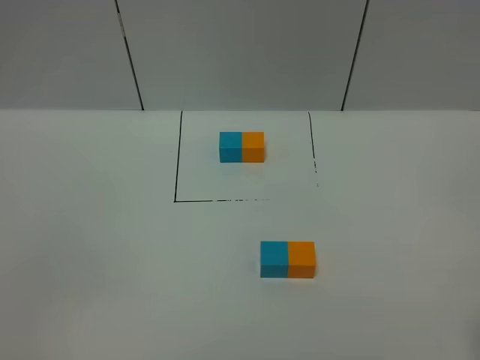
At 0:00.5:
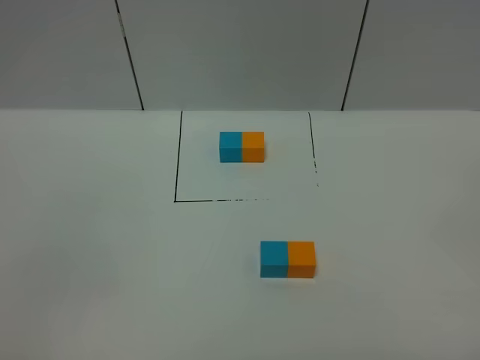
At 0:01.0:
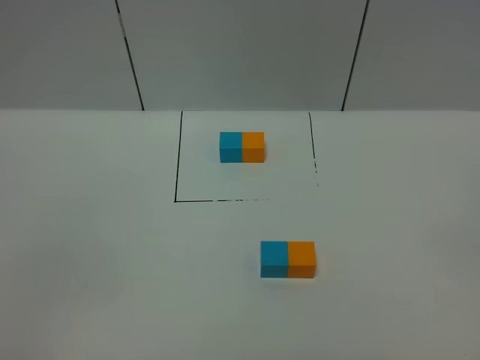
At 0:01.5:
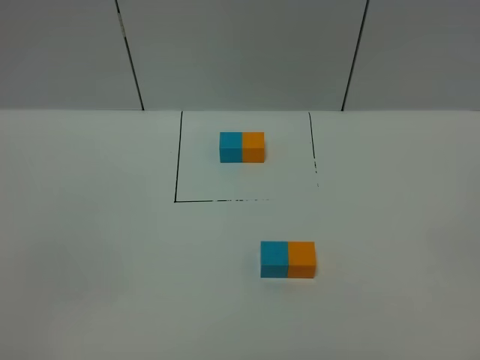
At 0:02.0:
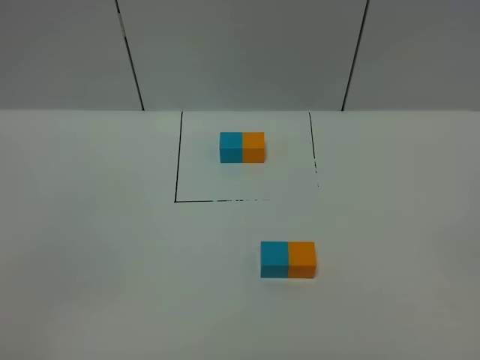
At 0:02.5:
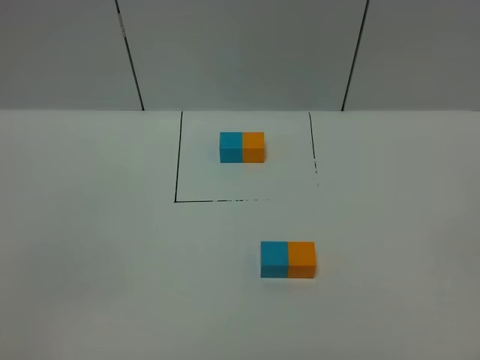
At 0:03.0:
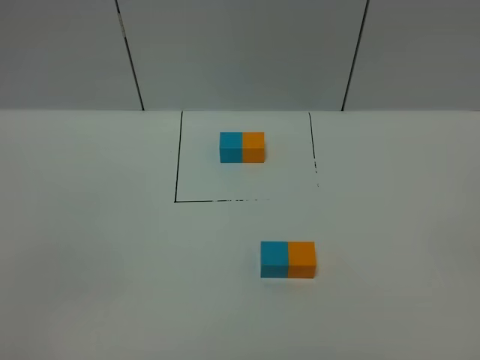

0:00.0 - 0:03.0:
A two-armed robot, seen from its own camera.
Task of the whole recording: According to the building block template in front, assemble the scattered blocks together.
0:01.5 - 0:03.0: The two grippers keep their place.
